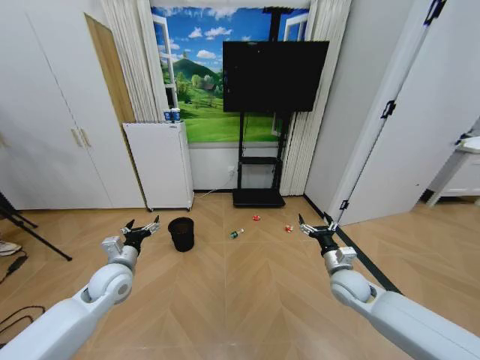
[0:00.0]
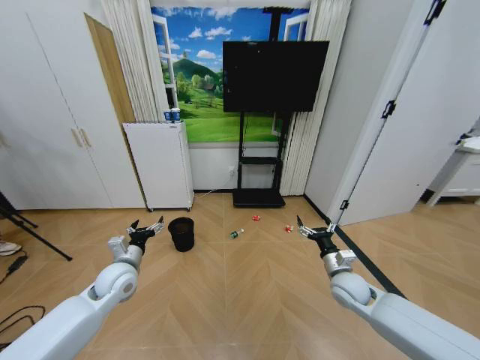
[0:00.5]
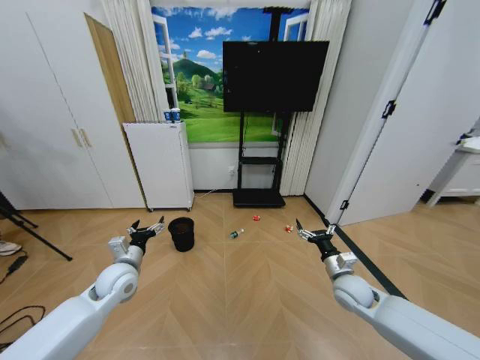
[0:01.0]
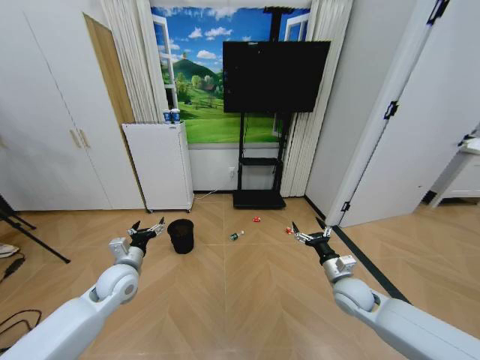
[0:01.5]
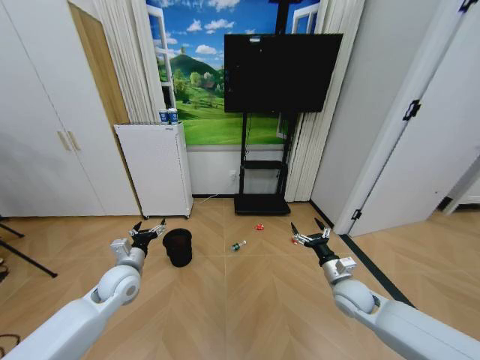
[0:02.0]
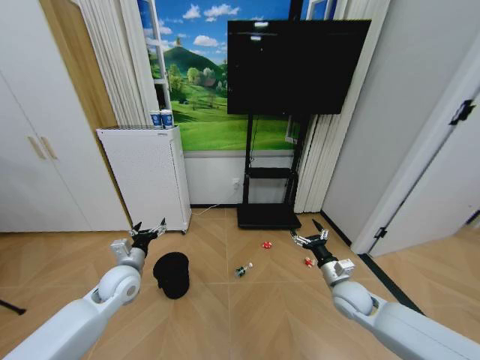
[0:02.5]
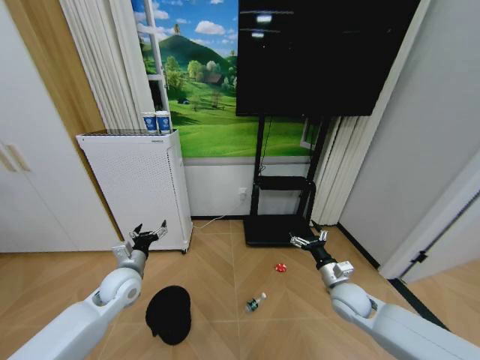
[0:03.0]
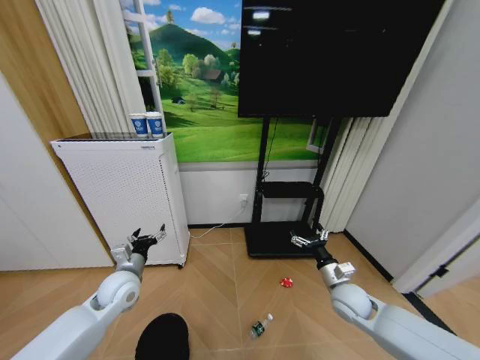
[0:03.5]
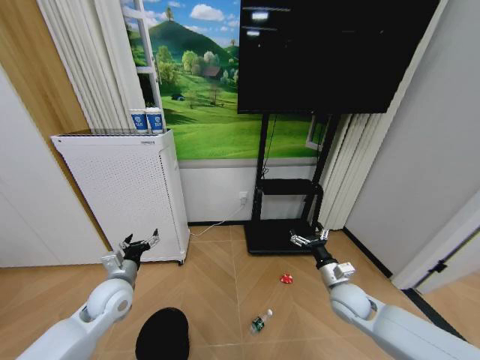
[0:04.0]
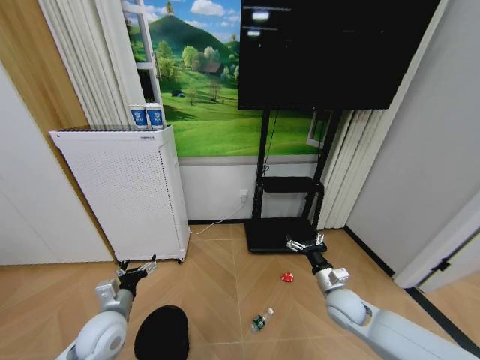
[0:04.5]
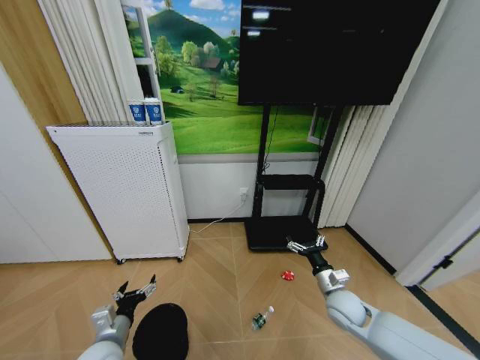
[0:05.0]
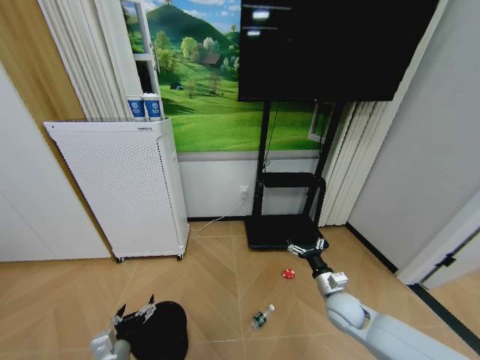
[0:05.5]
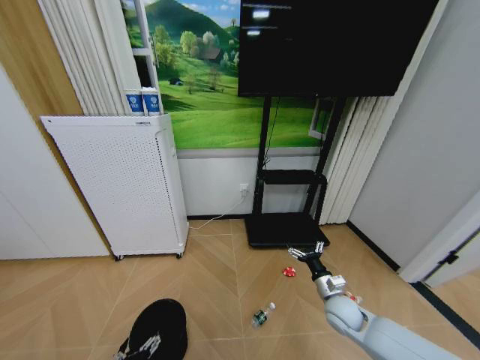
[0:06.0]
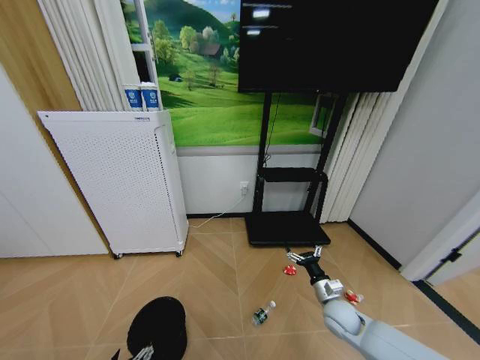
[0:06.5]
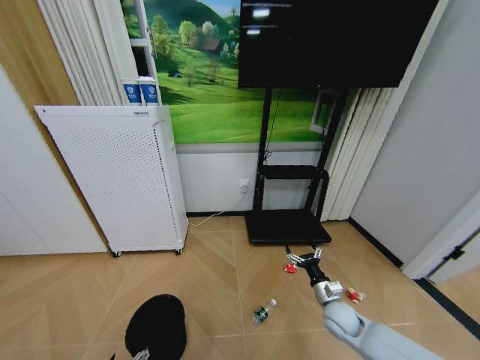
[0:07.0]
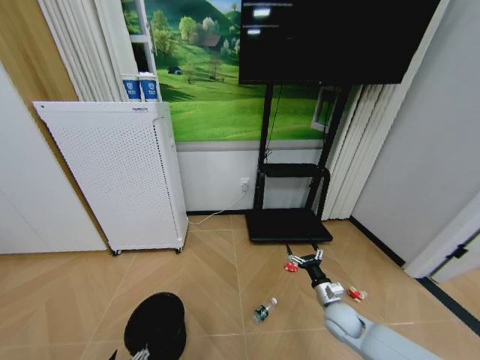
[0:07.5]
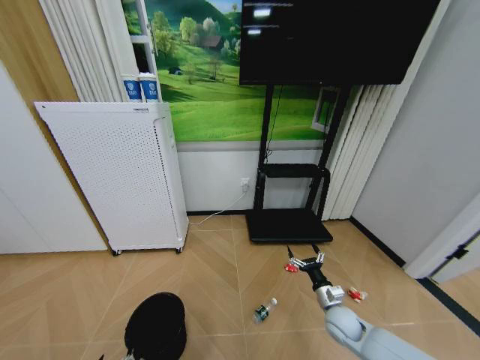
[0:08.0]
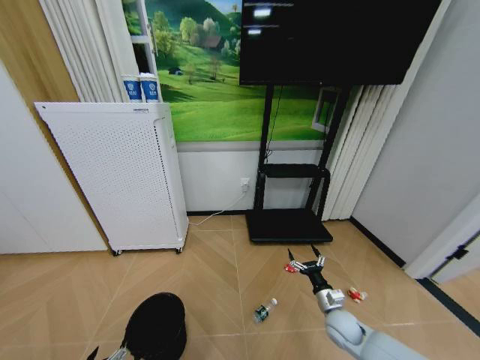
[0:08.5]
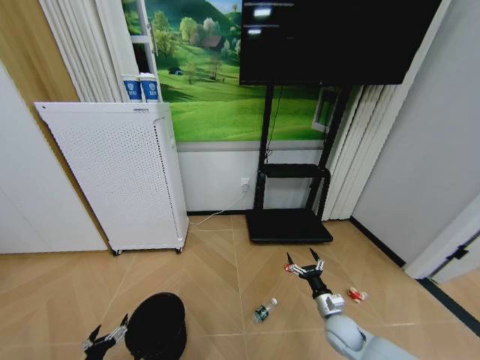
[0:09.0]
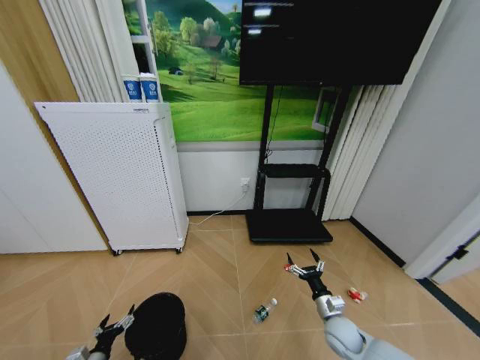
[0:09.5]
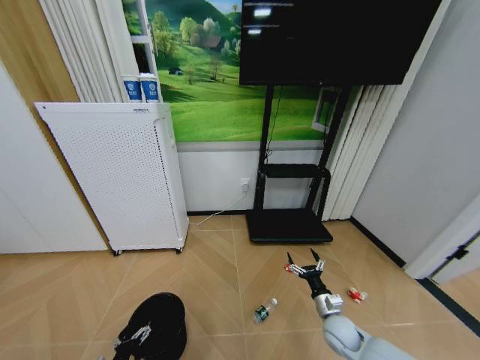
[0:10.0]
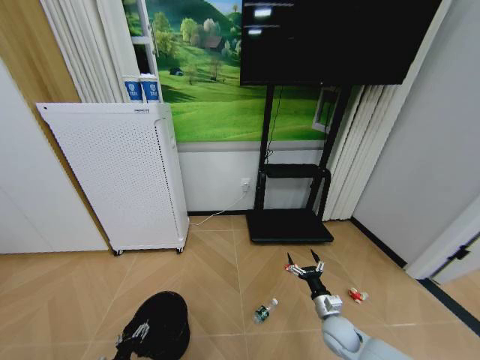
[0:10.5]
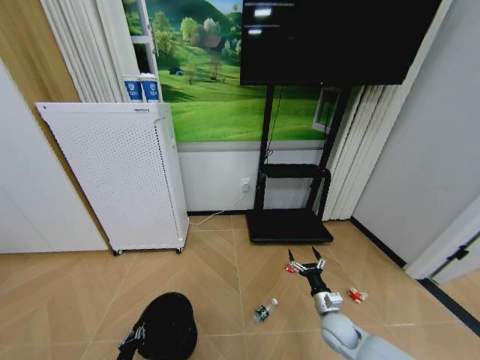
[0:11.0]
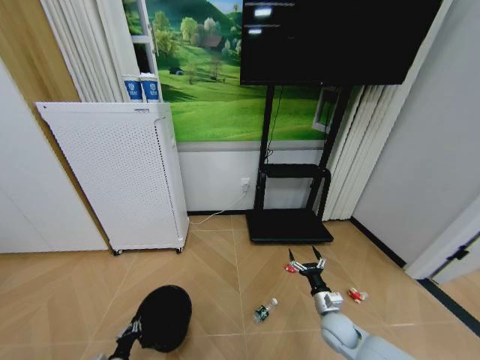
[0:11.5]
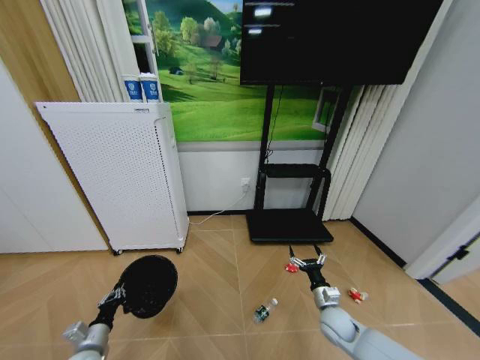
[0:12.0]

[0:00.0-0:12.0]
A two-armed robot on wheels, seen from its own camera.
Task of the whole recording: Pick up the trash bin and place the garbage on the floor into it.
0:04.0 to 0:06.0: The right gripper is displaced downward by some 5 cm. The left gripper travels backward and downward by some 25 cm.
0:06.0 to 0:08.0: The left gripper is displaced to the left and backward by some 10 cm.
0:08.0 to 0:10.0: The left gripper is displaced forward and downward by roughly 10 cm.
0:10.0 to 0:12.0: The left gripper is displaced upward and forward by about 10 cm, and closes.

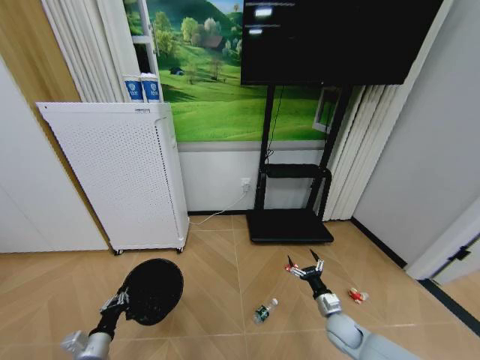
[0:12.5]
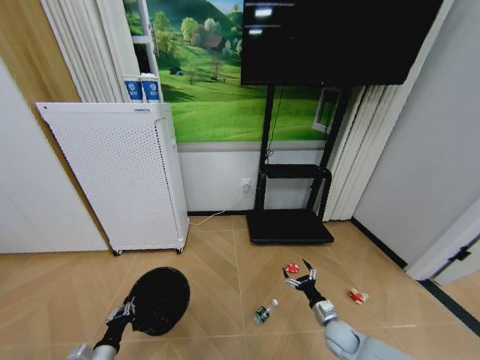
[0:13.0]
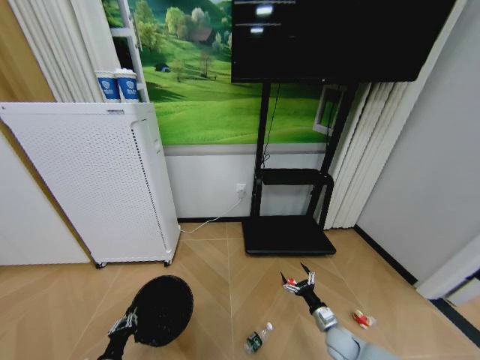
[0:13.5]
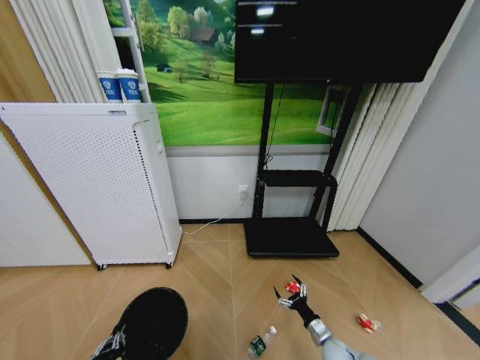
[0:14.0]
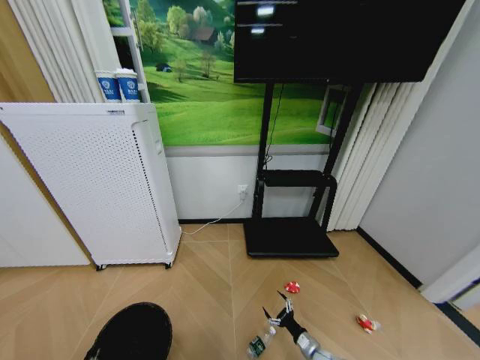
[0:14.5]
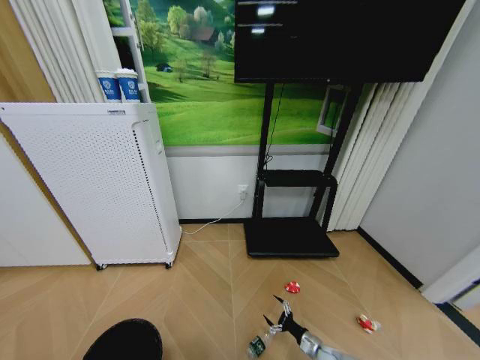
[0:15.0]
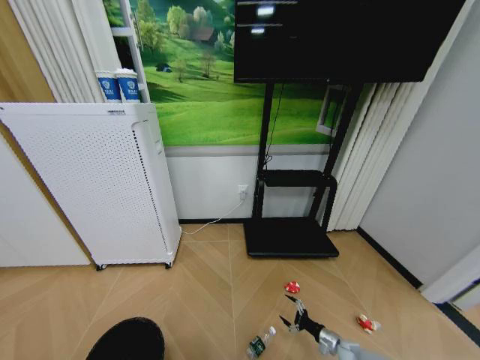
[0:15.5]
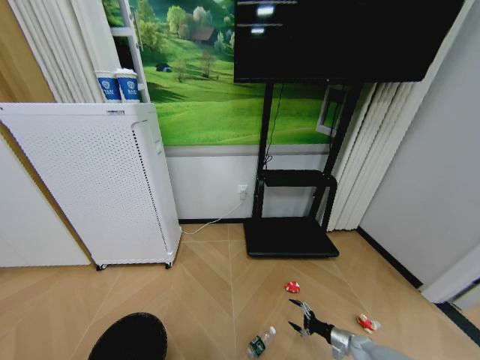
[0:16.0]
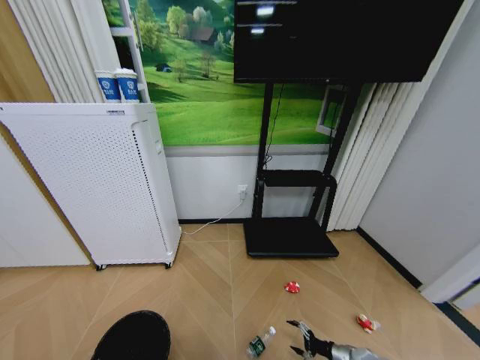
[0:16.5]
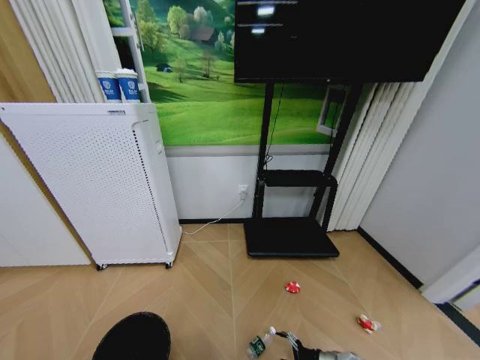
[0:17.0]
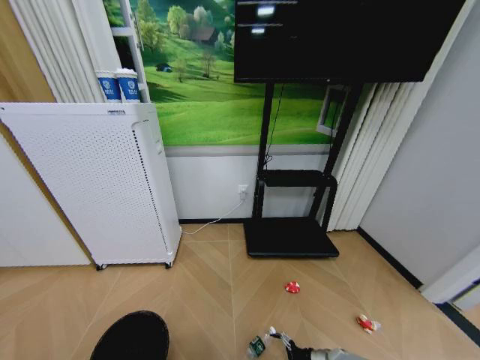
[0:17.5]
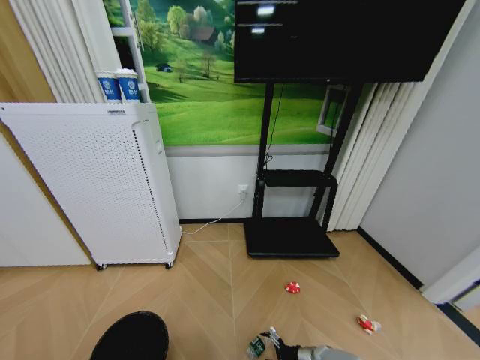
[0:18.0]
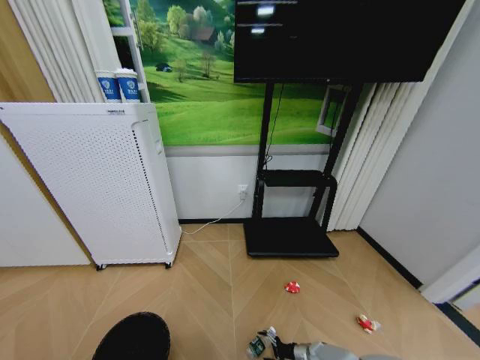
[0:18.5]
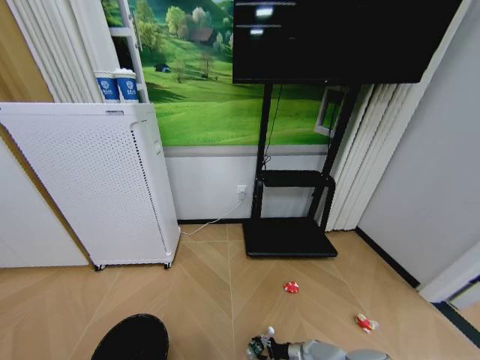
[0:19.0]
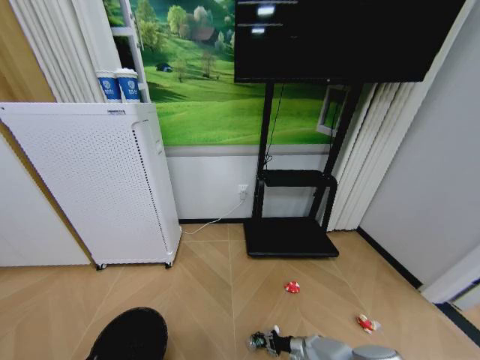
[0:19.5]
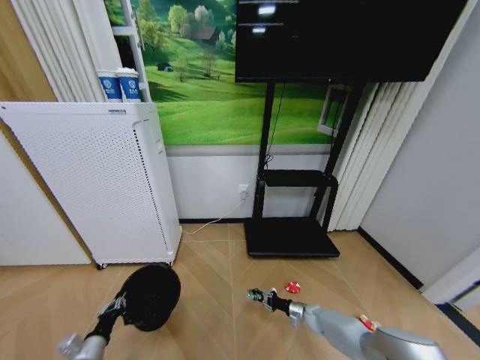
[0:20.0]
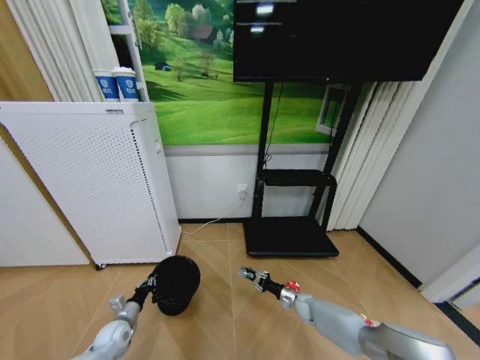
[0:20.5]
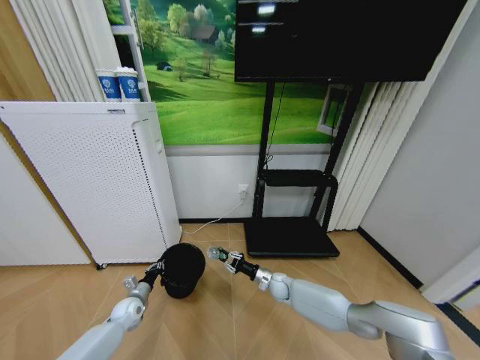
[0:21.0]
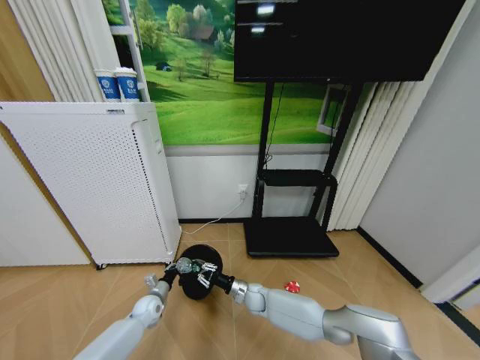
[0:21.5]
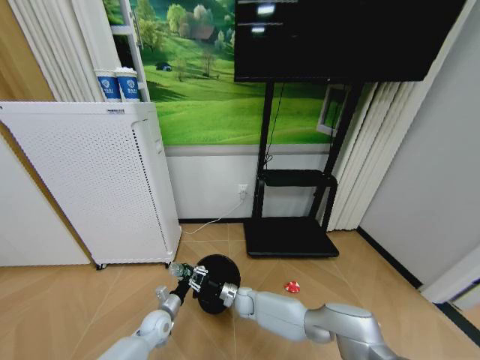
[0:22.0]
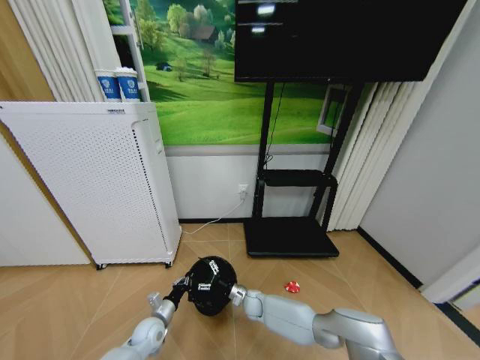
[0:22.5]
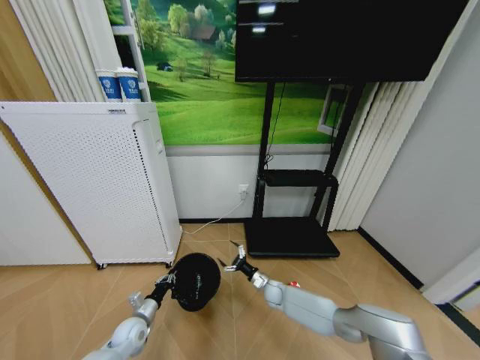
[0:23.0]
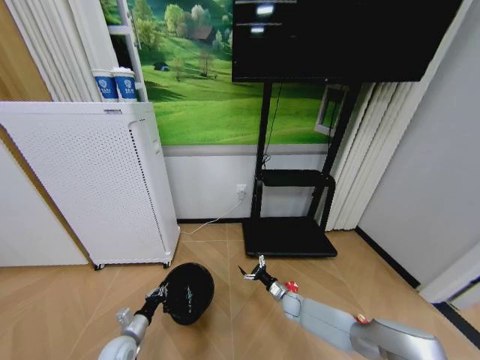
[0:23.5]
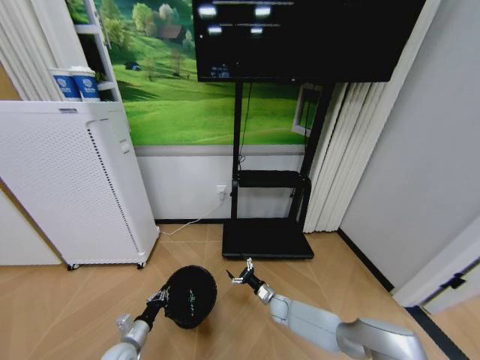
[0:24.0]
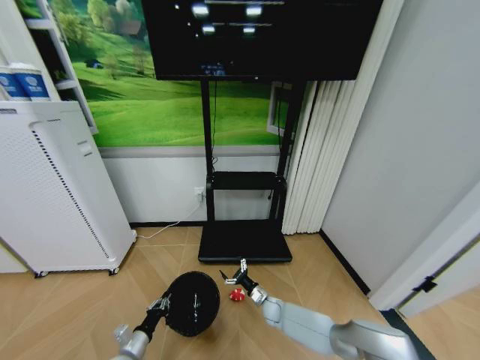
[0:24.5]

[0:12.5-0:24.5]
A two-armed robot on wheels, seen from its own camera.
Task of the whole recording: Pick up the trash bin and place the garbage on the floor into it.
0:12.5 to 0:14.5: The left gripper goes about 15 cm backward, while the right gripper heads downward and backward, covering about 15 cm.
0:14.5 to 0:16.5: The right gripper heads to the right, covering about 15 cm.
0:16.5 to 0:18.5: The right gripper moves to the left and downward, about 15 cm.
0:18.5 to 0:20.5: The left gripper moves forward, approximately 30 cm, while the right gripper moves forward and upward, approximately 20 cm, and closes up.
0:20.5 to 0:22.5: The left gripper heads to the right, covering roughly 10 cm, while the right gripper heads to the left, covering roughly 20 cm, and opens.
0:22.5 to 0:24.5: The right gripper goes roughly 10 cm to the right. Meanwhile the left gripper travels backward and to the left by about 10 cm.

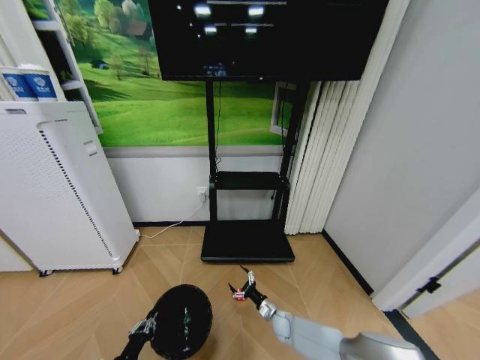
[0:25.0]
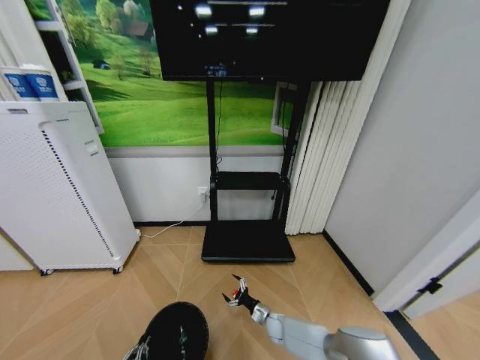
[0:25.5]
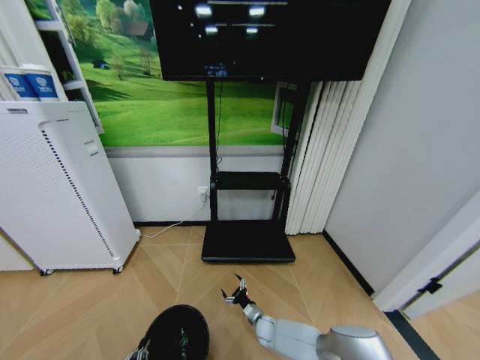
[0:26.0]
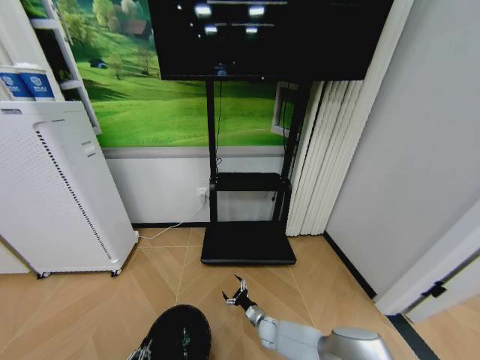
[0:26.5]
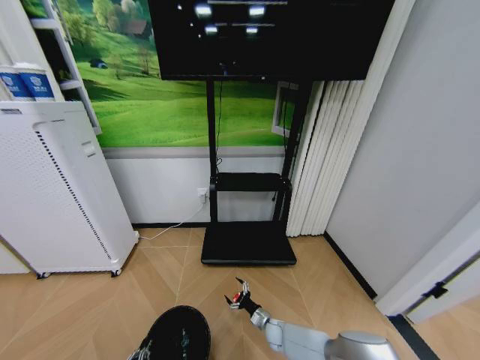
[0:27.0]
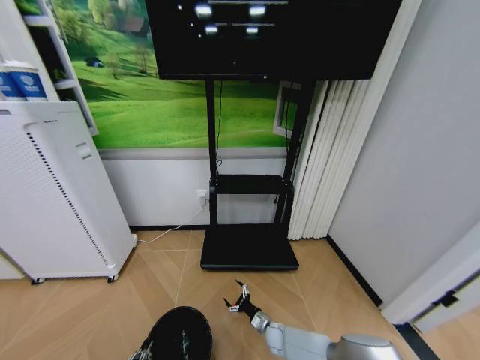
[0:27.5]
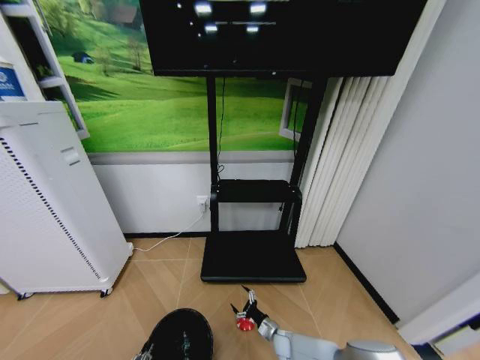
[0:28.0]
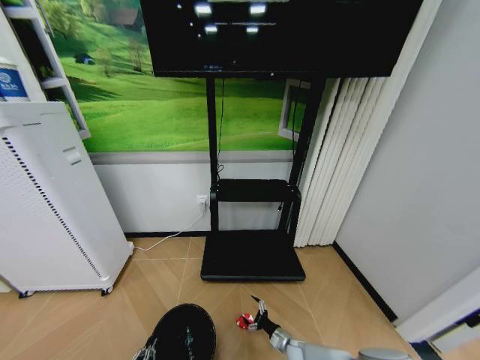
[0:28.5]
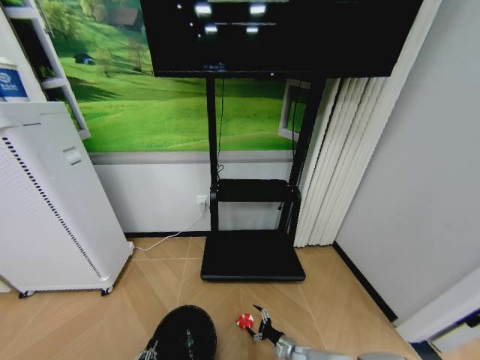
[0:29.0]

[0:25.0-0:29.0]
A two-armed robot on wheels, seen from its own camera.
Task of the whole recording: Pick up the trash bin and place the garbage on the floor into it.
0:25.0 to 0:27.0: The right gripper shifts by roughly 5 cm. The left gripper is displaced backward by some 10 cm.
0:27.0 to 0:29.0: The right gripper is displaced to the right and backward by about 10 cm.
